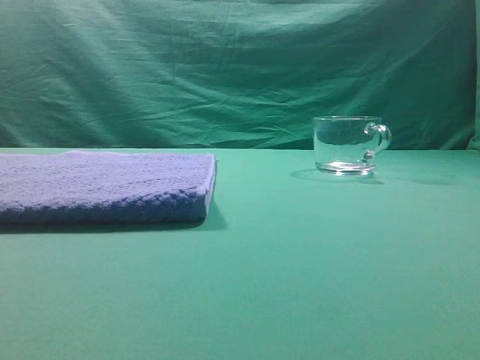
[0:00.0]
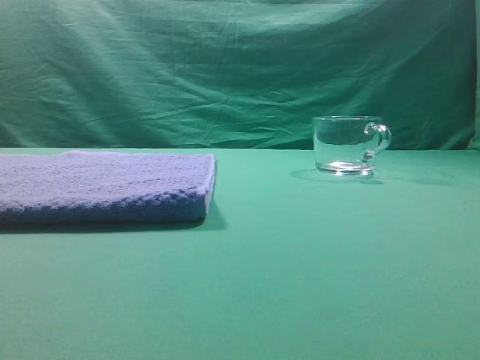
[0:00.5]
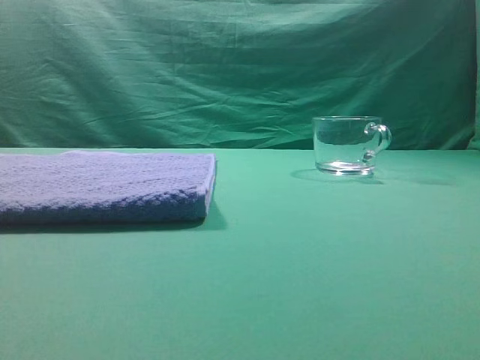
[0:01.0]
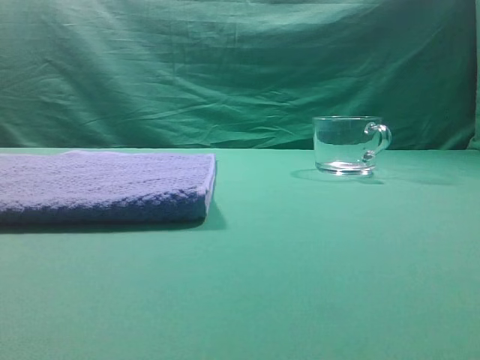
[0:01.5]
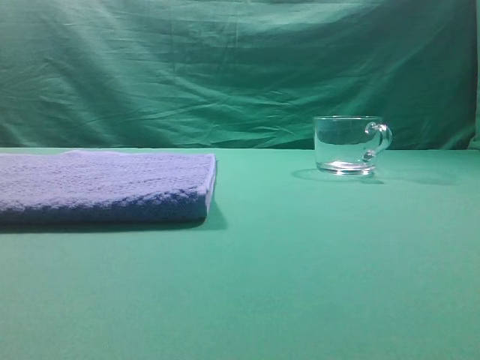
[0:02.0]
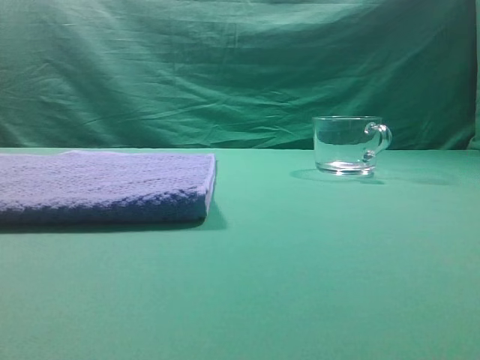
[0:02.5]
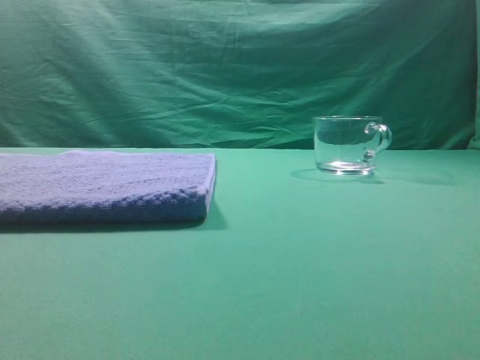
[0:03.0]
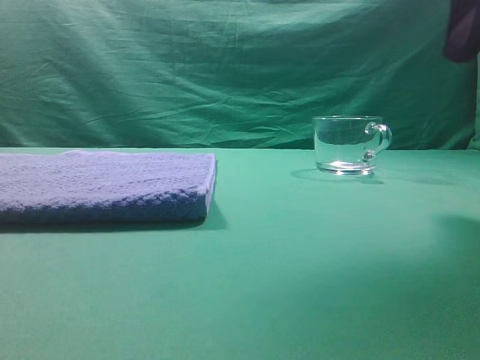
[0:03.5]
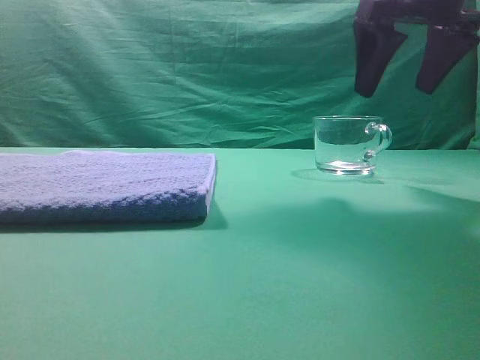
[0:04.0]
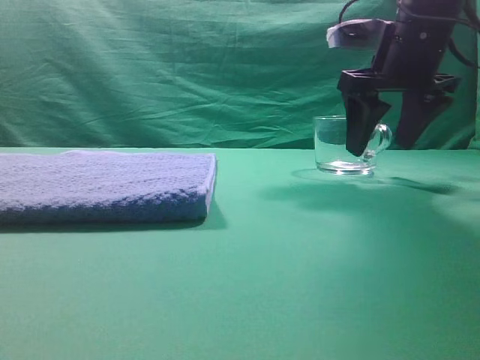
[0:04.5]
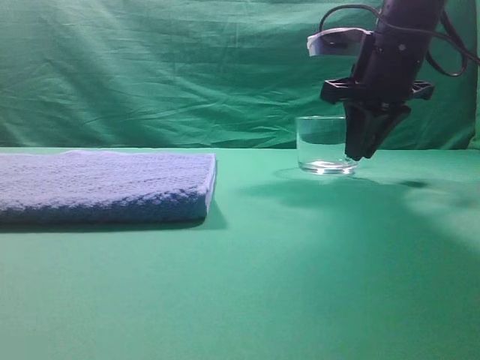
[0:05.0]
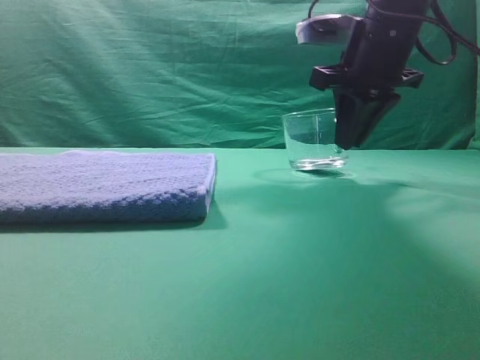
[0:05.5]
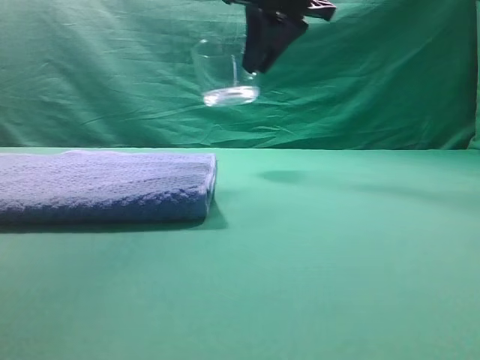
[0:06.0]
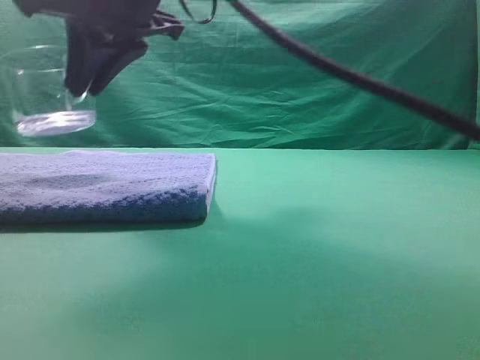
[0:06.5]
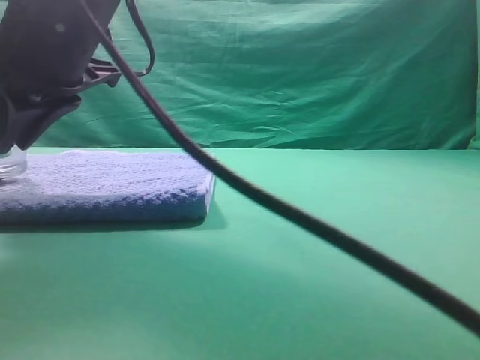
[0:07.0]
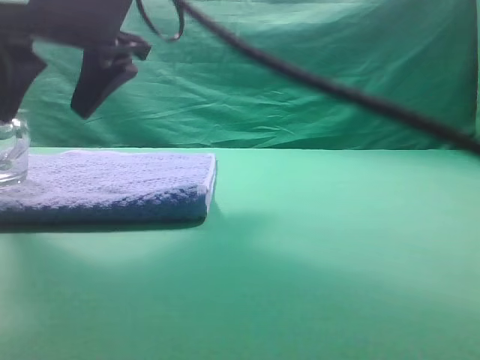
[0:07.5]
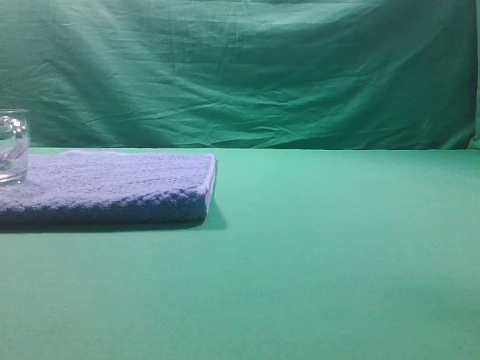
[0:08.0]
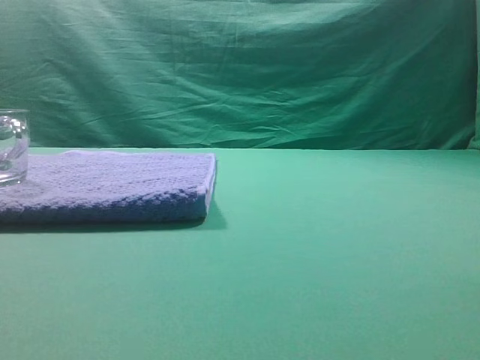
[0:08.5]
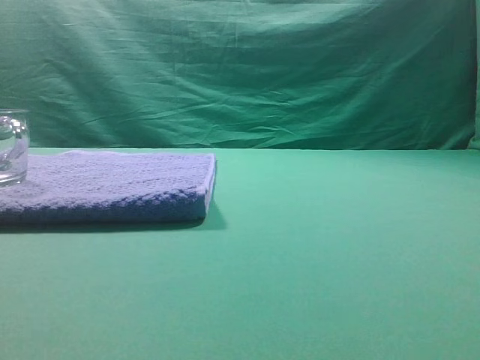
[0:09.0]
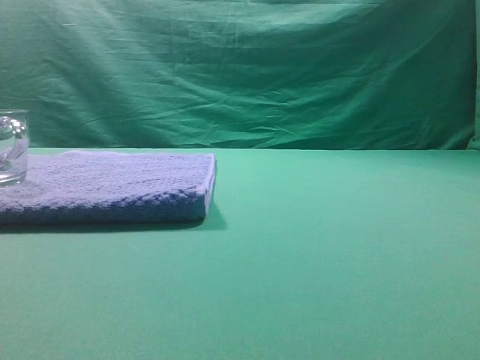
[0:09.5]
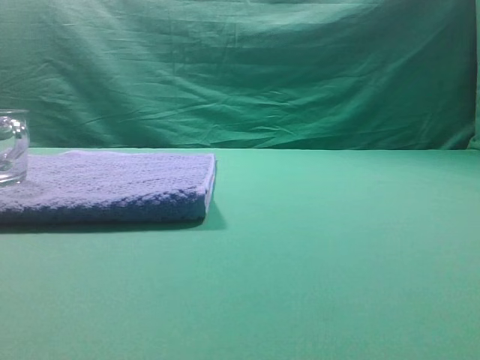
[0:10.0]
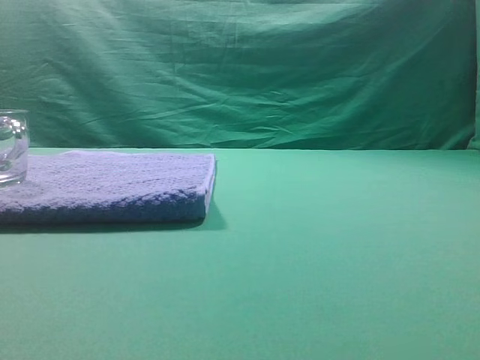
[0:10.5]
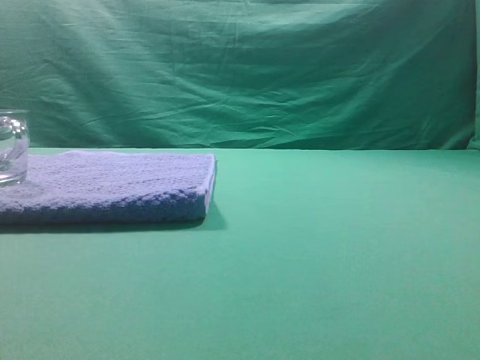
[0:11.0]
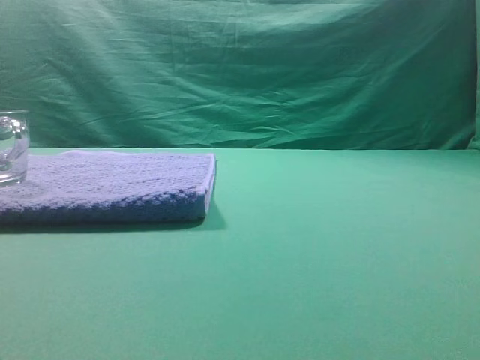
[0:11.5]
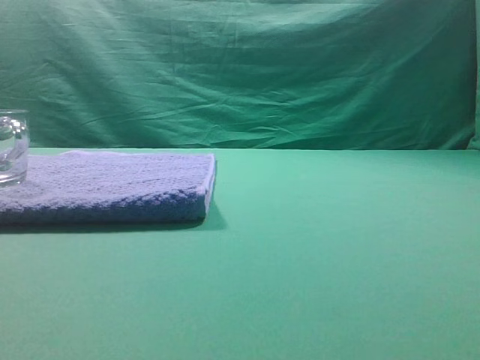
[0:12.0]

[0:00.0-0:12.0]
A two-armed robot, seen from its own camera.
Task of the whole recording: grasp the transparent glass cup and place it within the blue towel.
Step, 0:00.0 to 0:05.5: Grasp the transparent glass cup.
Step, 0:06.0 to 0:07.5: Place the glass cup on the blue zone.

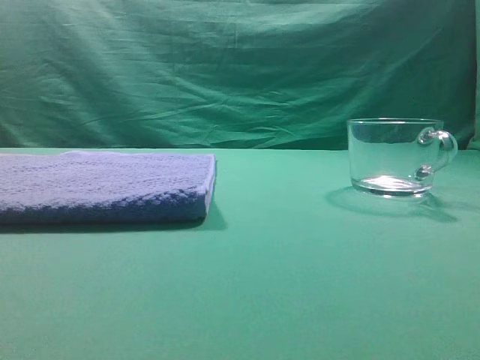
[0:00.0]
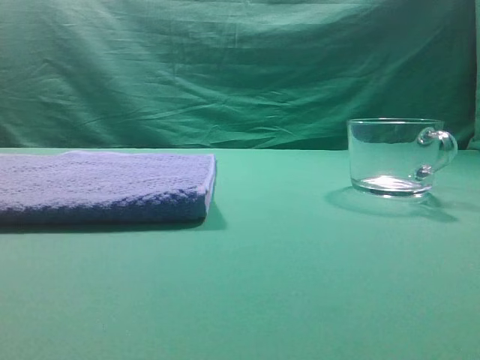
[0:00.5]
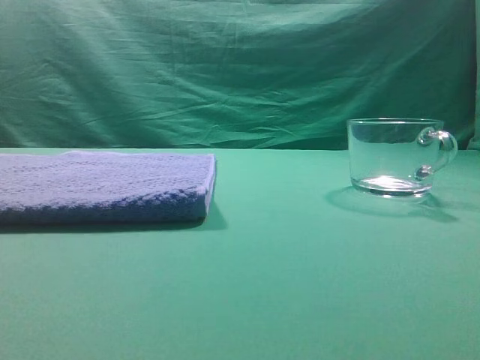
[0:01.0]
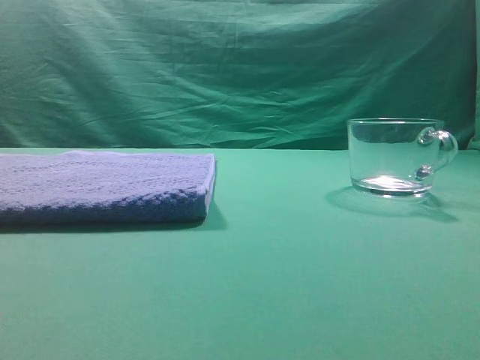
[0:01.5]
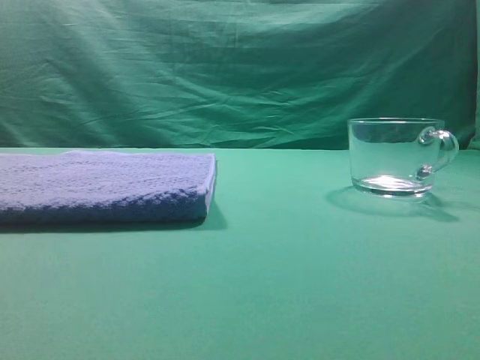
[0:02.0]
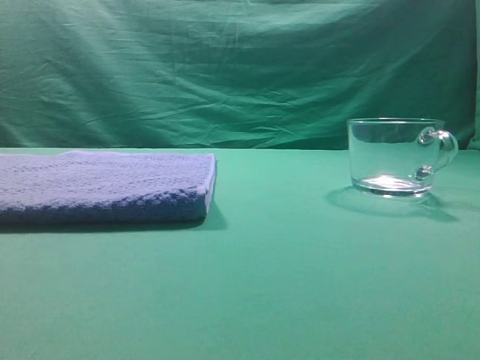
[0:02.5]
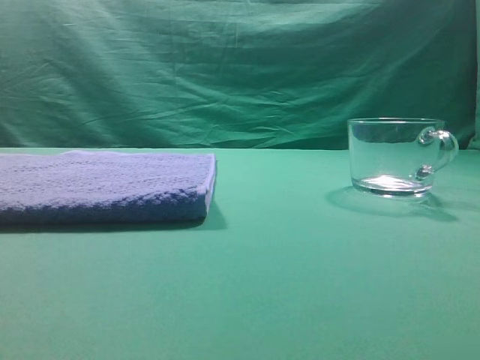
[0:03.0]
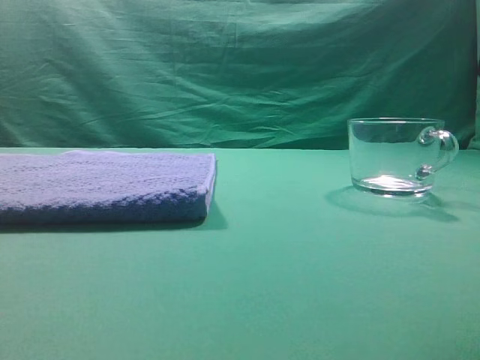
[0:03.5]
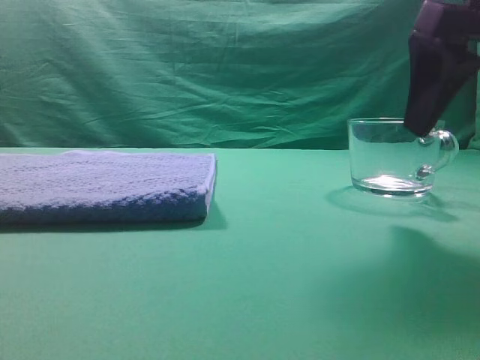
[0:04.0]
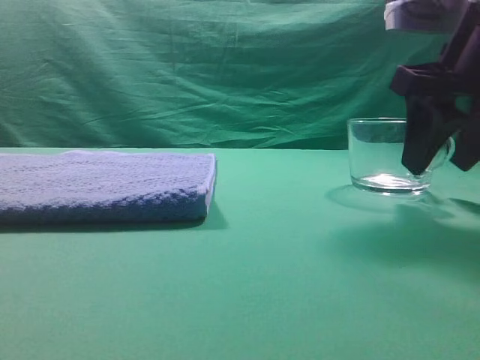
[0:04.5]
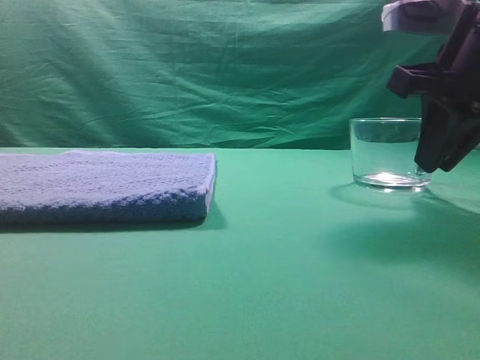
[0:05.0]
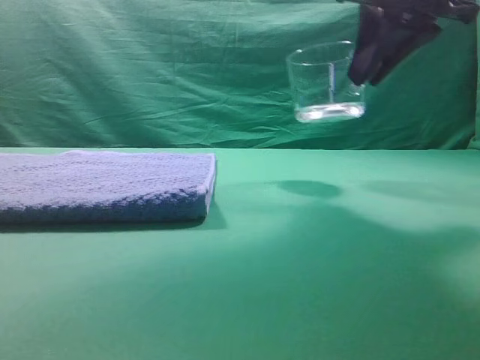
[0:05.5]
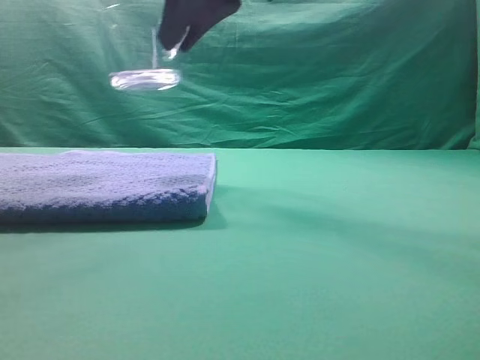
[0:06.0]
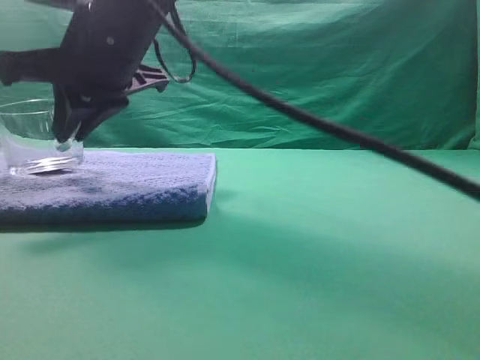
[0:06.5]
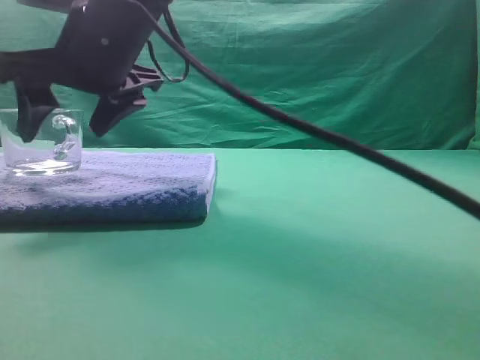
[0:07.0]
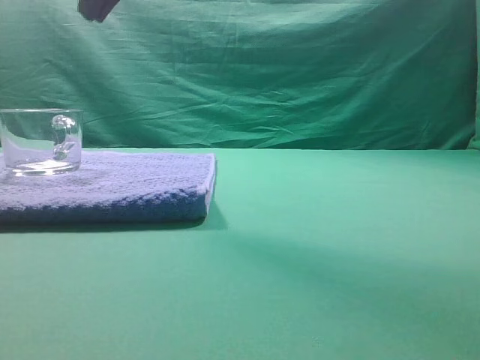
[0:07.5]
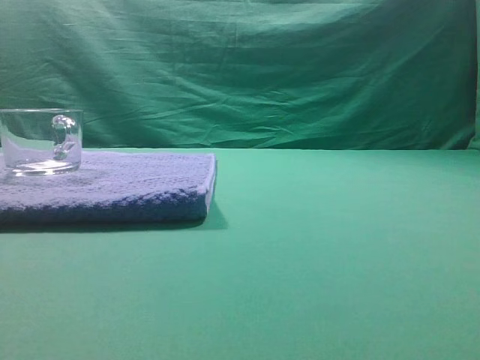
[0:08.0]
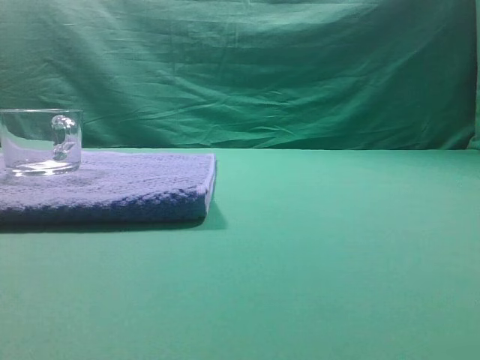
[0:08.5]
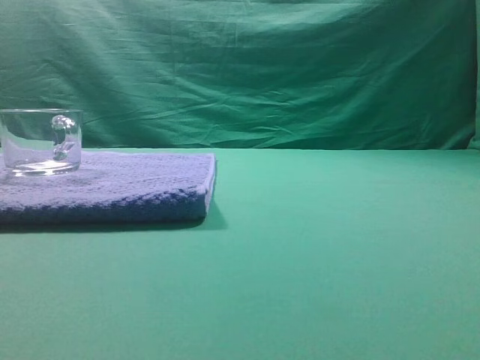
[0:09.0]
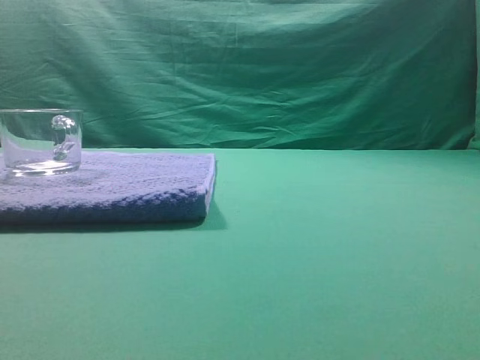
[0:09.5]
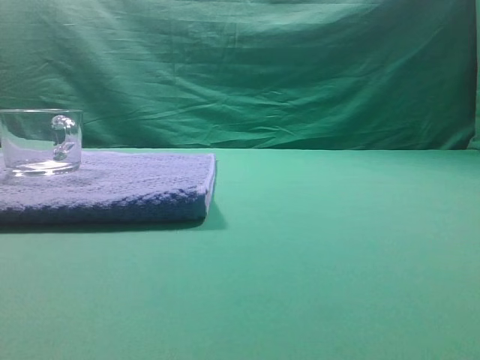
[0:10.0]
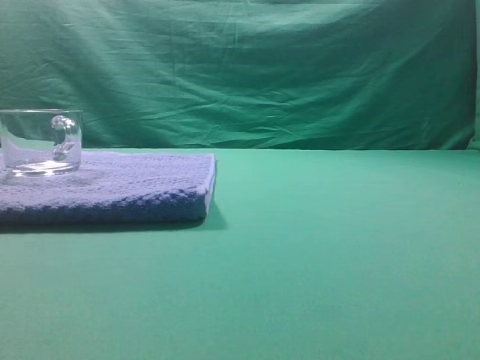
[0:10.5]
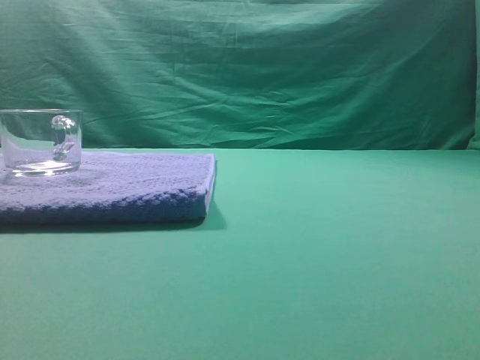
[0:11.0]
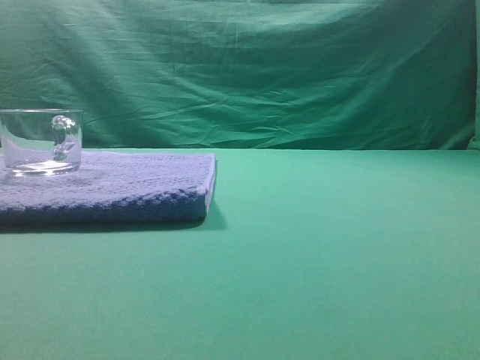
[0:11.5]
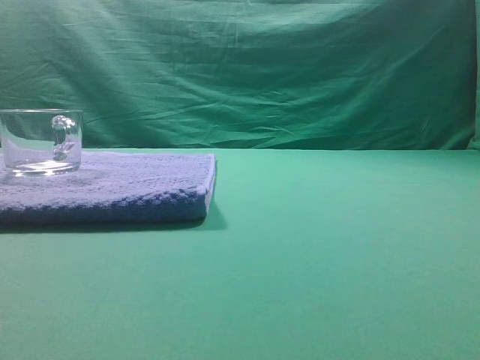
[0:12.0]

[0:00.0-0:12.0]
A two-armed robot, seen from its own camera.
Task of the whole recording: grasp the transparent glass cup and place it within the blue towel.
Step, 0:00.0 to 0:05.0: Grasp the transparent glass cup.
Step, 0:05.5 to 0:07.0: Place the glass cup on the blue zone.
